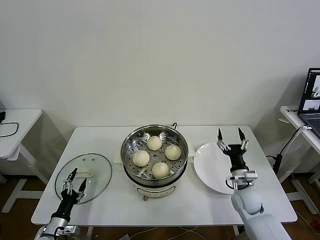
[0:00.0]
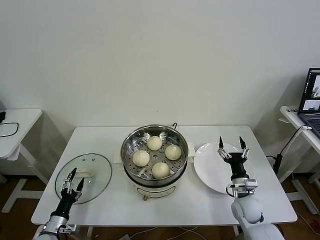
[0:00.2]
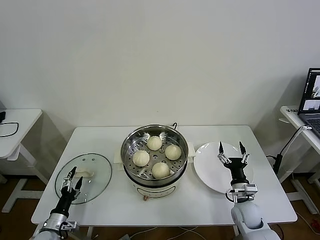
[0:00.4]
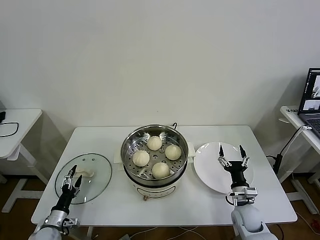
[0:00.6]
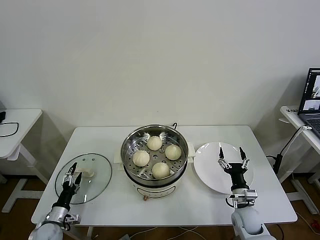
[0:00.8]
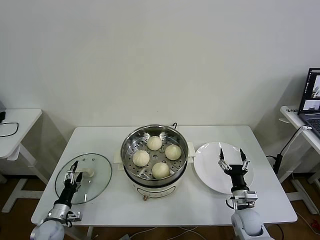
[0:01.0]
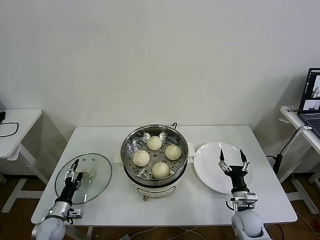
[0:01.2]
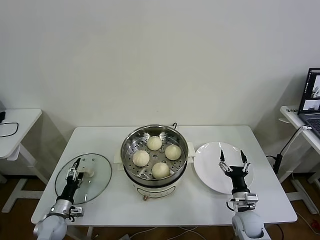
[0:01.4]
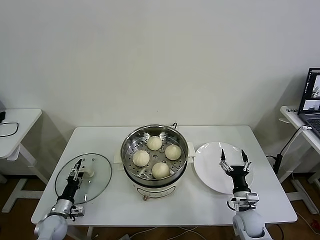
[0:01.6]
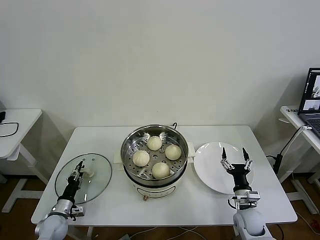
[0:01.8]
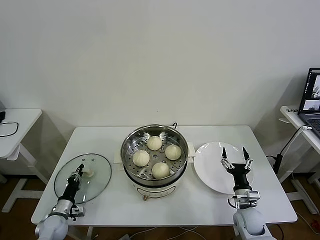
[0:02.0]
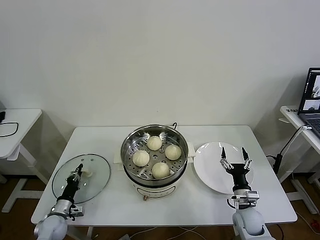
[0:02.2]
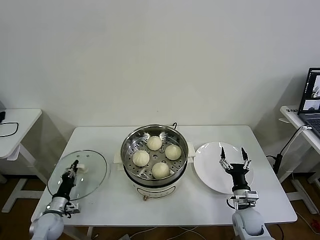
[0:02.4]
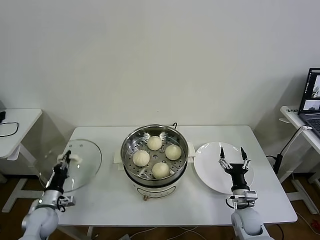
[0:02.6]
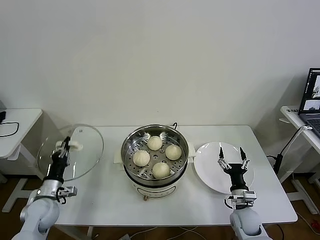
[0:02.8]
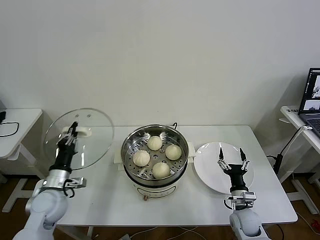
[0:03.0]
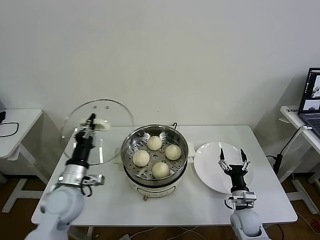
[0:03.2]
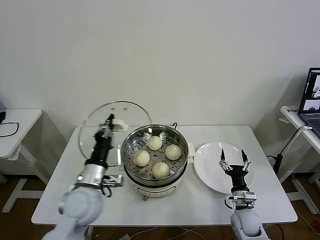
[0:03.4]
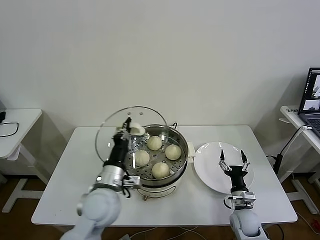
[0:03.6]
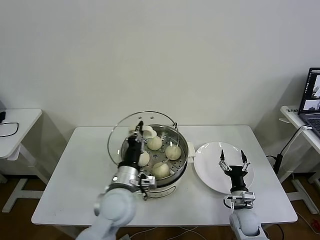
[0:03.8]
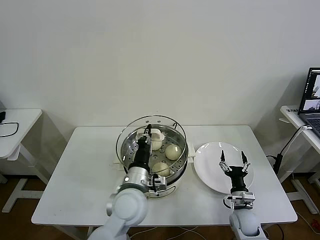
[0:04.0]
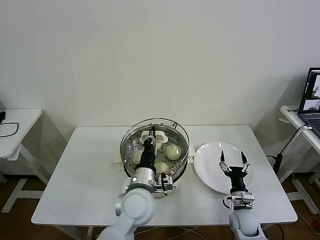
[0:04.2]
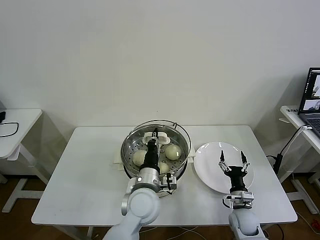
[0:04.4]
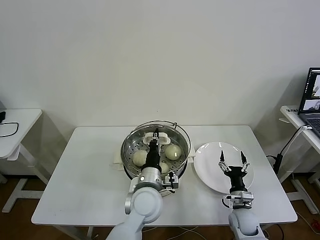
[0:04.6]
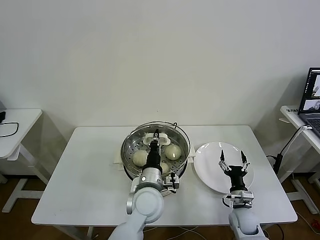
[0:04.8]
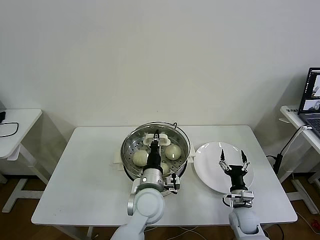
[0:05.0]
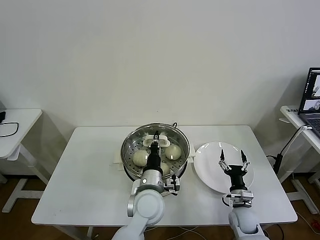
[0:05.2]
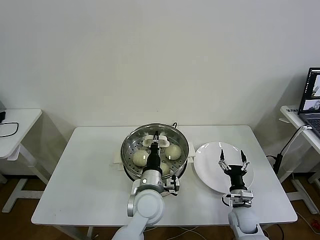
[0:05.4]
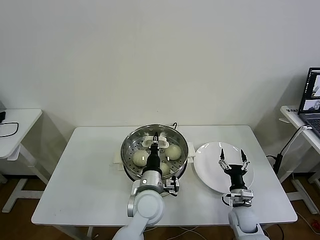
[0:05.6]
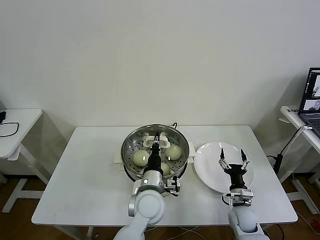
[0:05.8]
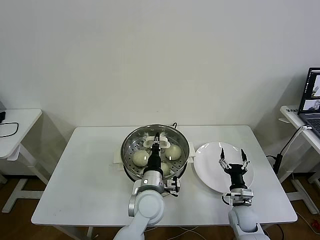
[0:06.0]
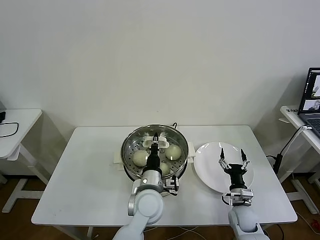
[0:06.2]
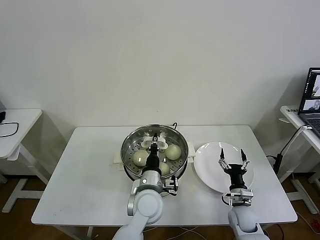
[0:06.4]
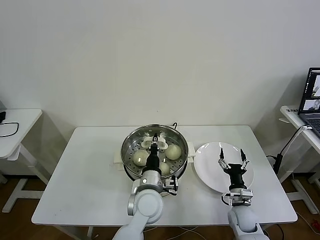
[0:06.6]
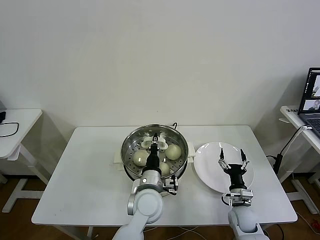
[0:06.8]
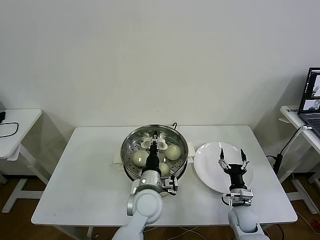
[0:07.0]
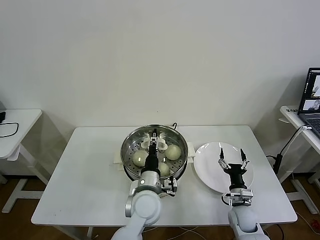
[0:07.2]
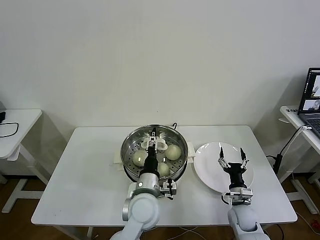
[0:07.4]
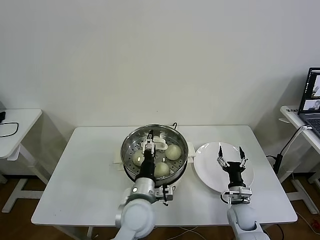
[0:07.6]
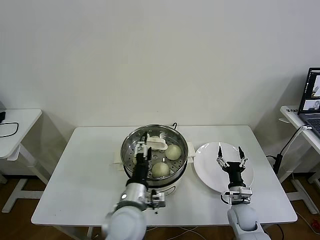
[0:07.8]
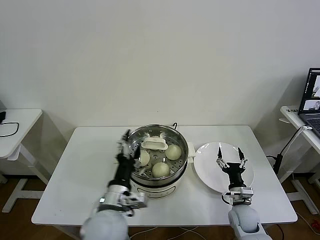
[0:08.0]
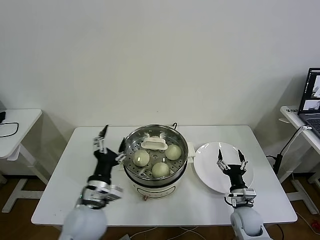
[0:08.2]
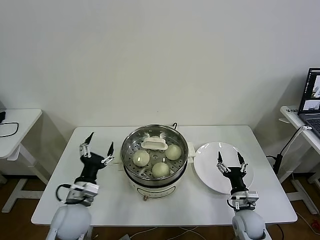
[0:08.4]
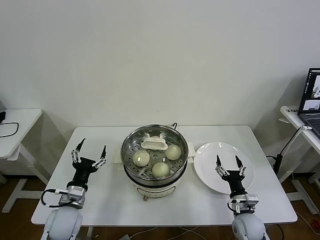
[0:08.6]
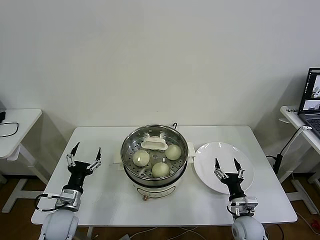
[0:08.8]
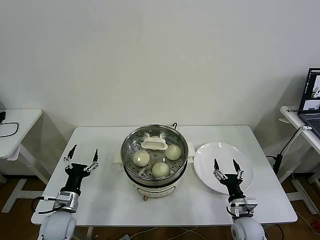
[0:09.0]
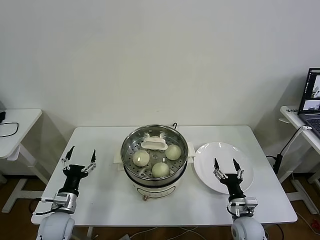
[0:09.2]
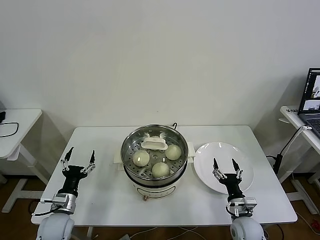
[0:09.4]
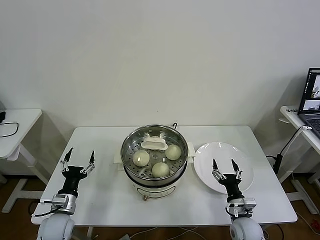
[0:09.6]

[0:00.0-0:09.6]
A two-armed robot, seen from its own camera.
Task of the whole recording: take steamed baozi put them in steamer then cover it.
Step, 0:00.0 to 0:02.2: Grasp the pot lid with left gripper.
Step, 0:02.4 to 0:07.2: Place the pot lid on the steamer with left gripper.
0:00.0 to 0:01.6: The left gripper is displaced forward by about 10 cm, while the right gripper shifts roughly 10 cm backward and downward.
0:01.6 to 0:03.2: The left gripper goes about 25 cm upward and to the right, and closes its fingers.
0:03.2 to 0:04.8: The left gripper is displaced to the right by some 25 cm.
0:04.8 to 0:06.4: The grippers move only a little.
0:06.4 to 0:08.0: The left gripper heads to the left, backward and upward, covering roughly 10 cm, and opens its fingers.
0:08.0 to 0:09.6: The left gripper travels to the left and downward by roughly 25 cm.

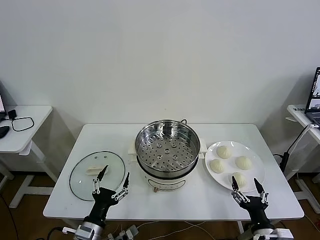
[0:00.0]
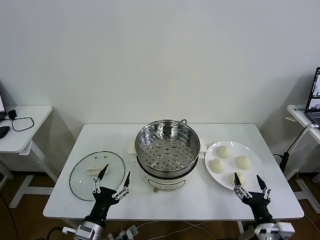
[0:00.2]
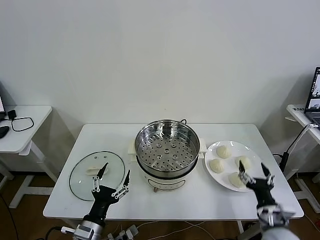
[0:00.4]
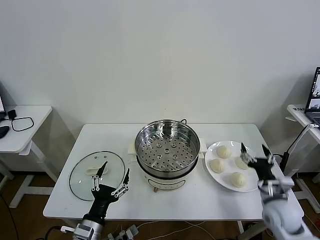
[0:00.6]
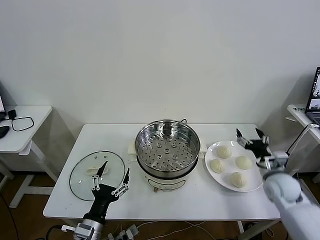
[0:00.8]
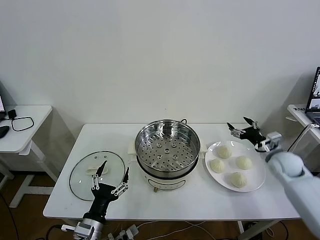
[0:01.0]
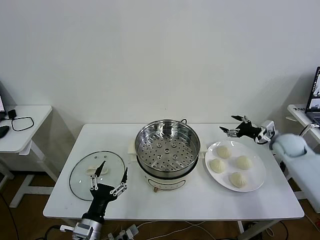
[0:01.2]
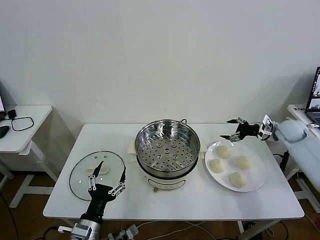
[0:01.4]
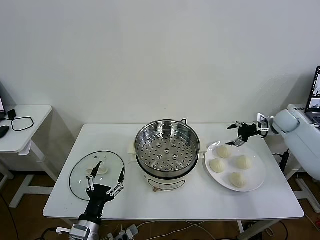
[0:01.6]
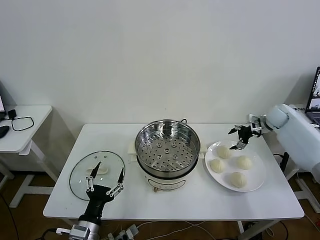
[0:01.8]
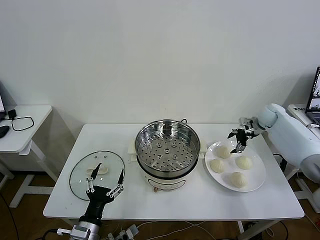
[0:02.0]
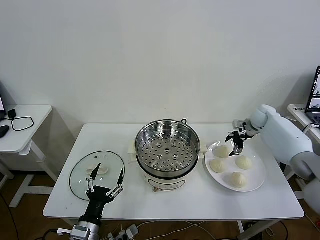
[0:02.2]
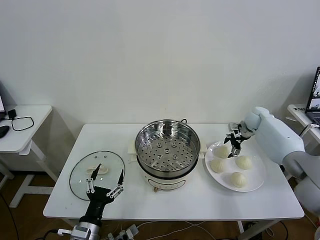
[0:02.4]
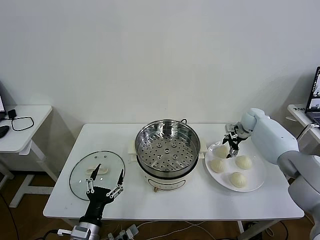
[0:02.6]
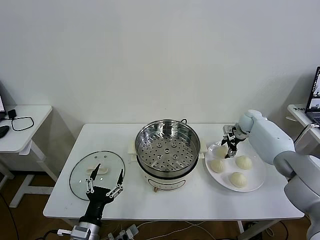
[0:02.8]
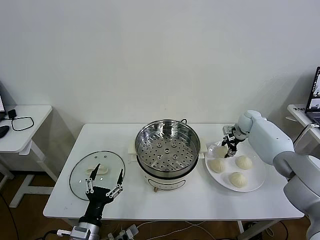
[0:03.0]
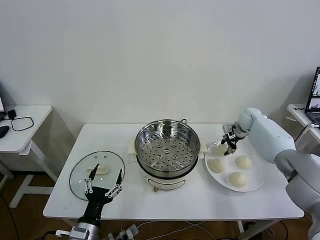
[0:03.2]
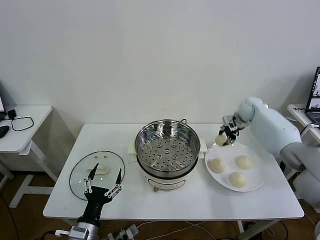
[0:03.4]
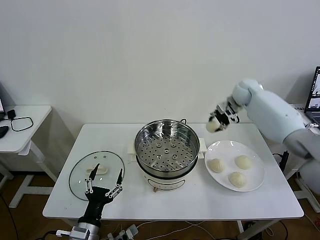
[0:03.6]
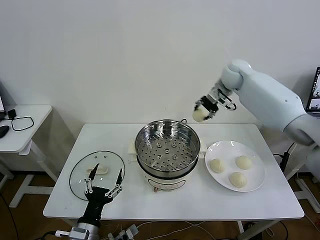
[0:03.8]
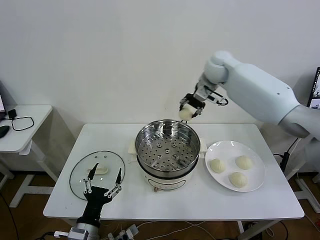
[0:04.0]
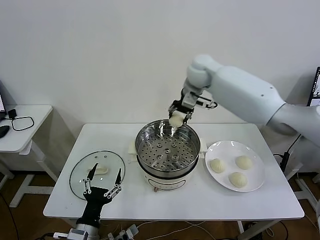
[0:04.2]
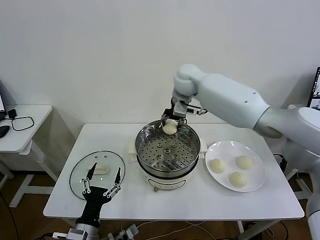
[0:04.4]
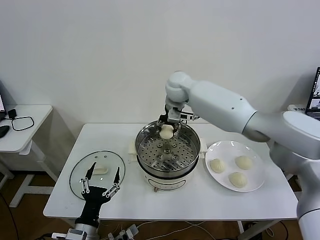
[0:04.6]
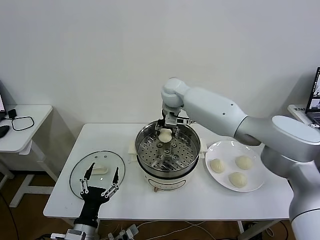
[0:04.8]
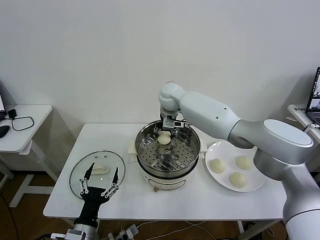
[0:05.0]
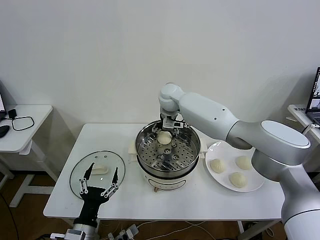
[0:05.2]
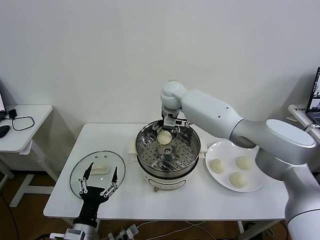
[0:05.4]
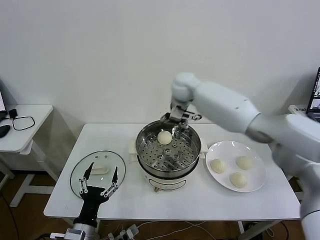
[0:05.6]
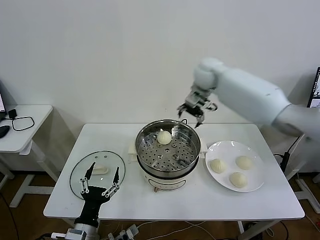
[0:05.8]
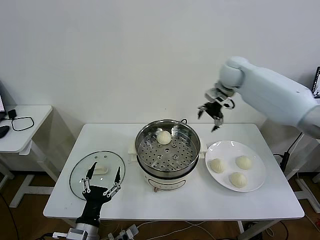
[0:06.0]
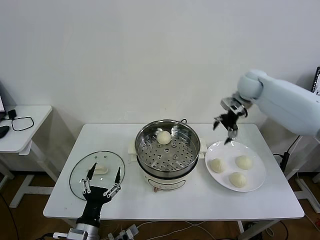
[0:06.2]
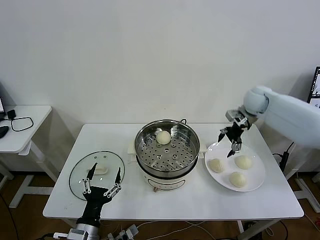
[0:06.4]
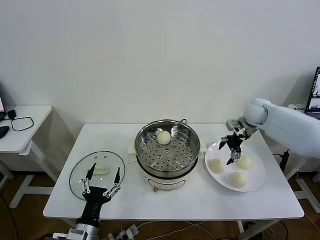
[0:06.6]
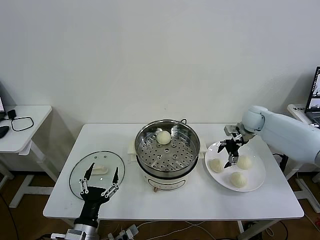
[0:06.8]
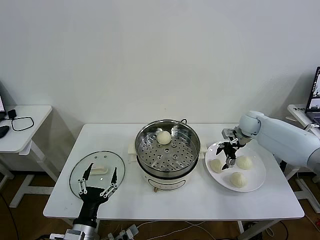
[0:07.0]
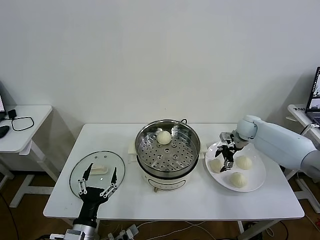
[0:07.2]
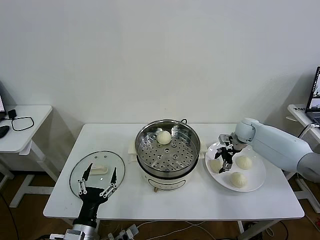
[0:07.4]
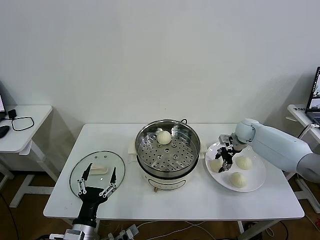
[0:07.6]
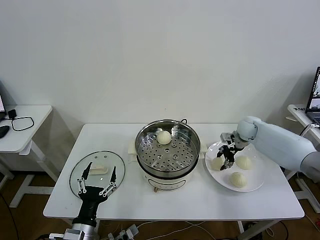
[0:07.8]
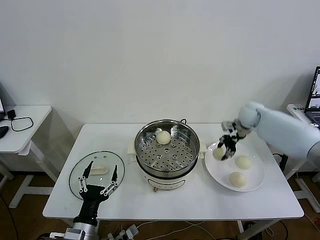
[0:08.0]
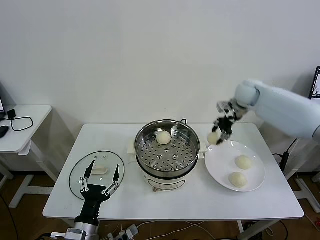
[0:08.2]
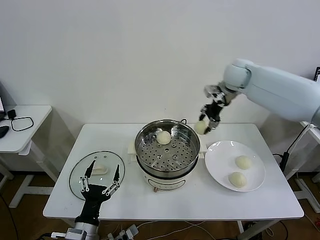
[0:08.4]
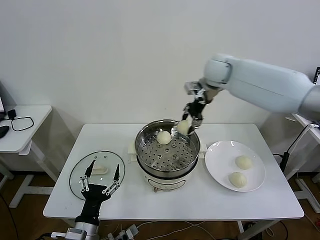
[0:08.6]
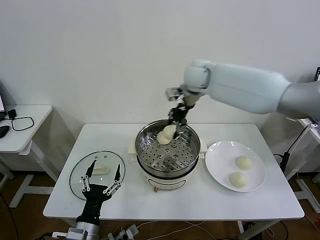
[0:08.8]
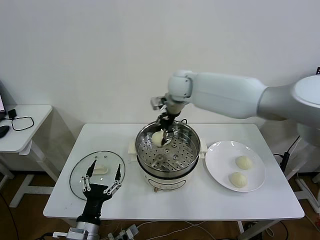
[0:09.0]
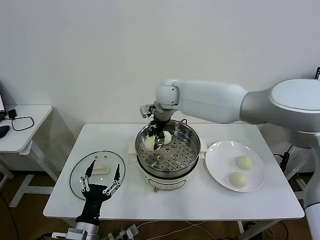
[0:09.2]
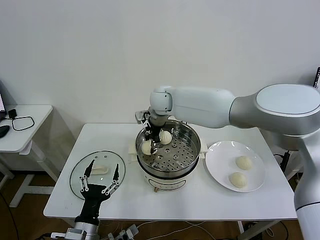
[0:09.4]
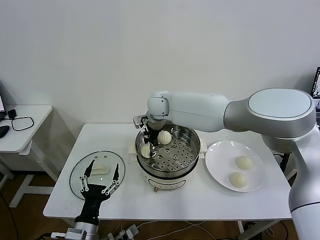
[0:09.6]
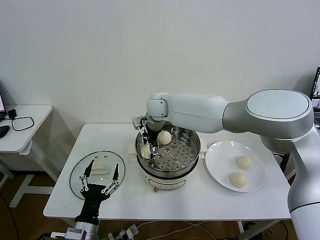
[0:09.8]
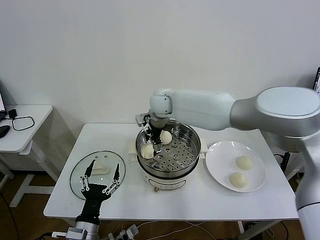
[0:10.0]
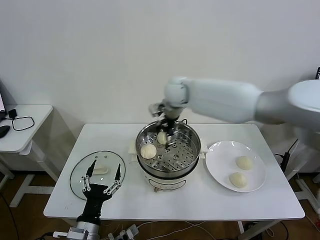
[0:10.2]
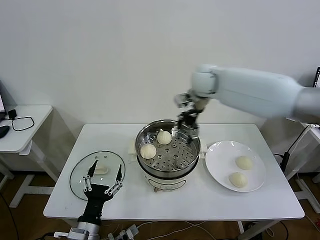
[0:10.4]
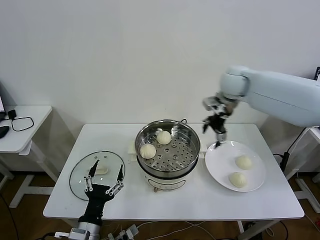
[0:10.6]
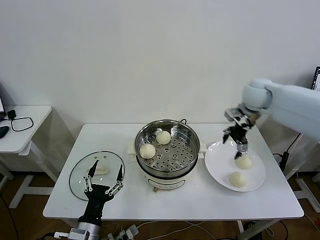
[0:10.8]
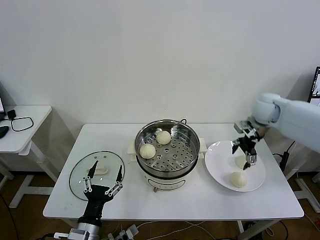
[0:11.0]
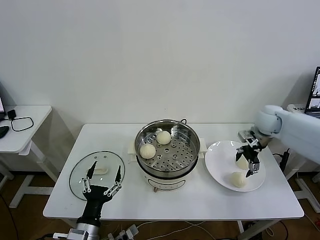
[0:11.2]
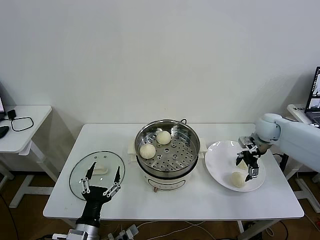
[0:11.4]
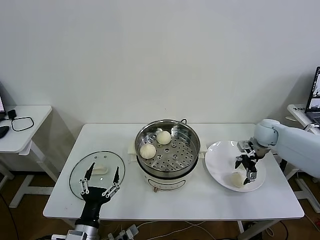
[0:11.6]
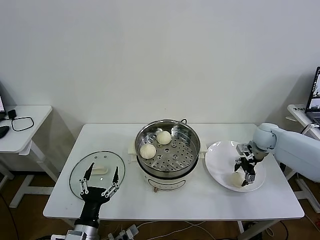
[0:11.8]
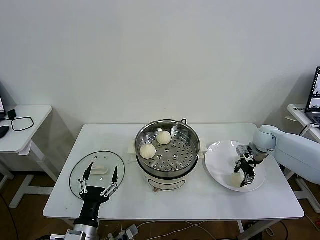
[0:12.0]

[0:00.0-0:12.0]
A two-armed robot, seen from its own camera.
Task of the whole recording: take steamed baozi put them in steamer then cover it.
Step, 0:00.0 to 0:03.0: Grasp the baozi in the plate with right gripper.
Step, 0:03.2 to 0:05.0: Place the baozi on the steamer with right gripper.
Step, 0:05.2 to 0:07.6: Grasp the baozi in the plate with right gripper.
Step, 0:07.8 to 0:09.8: Place the baozi on the steamer with right gripper.
0:01.6 to 0:03.0: The right gripper is displaced to the left and downward by about 10 cm, and closes up.
0:03.0 to 0:04.4: The right gripper heads to the left and upward, covering some 35 cm.
0:04.4 to 0:06.0: The right gripper travels to the right by some 20 cm, and opens.
0:06.0 to 0:07.6: The right gripper heads downward, covering approximately 20 cm, and closes.
0:07.6 to 0:09.0: The right gripper travels to the left and upward by some 35 cm.
0:09.0 to 0:10.4: The right gripper moves to the right, about 15 cm, and opens.
0:10.4 to 0:12.0: The right gripper moves to the right and downward, some 30 cm, and closes up.
